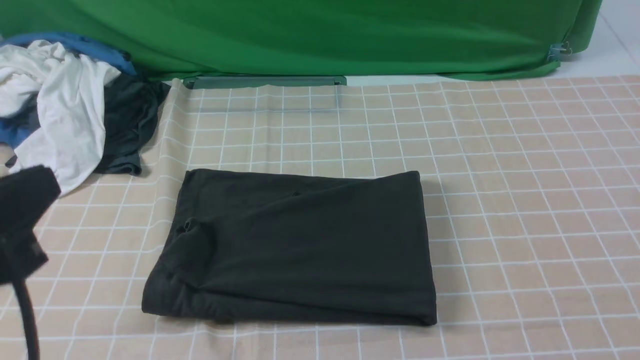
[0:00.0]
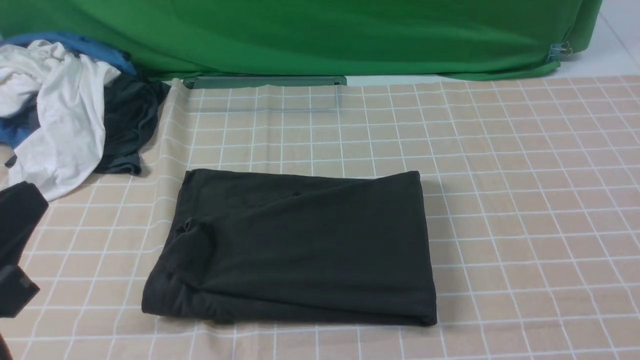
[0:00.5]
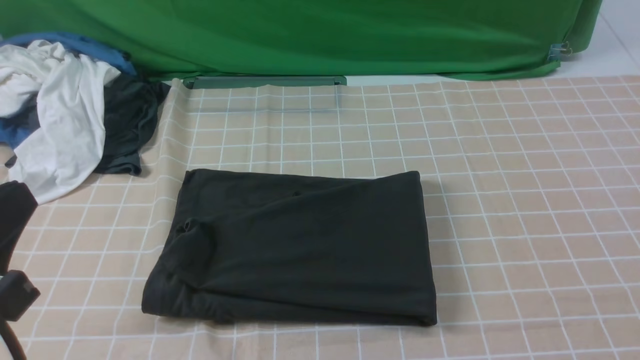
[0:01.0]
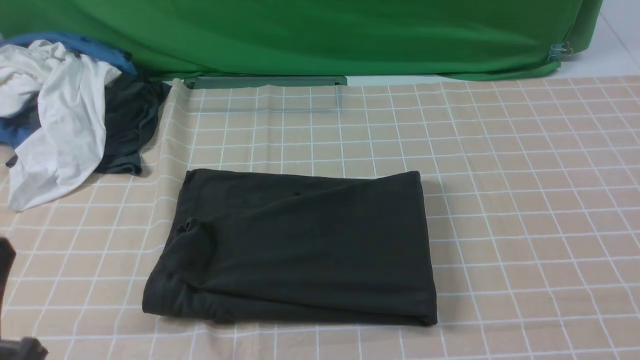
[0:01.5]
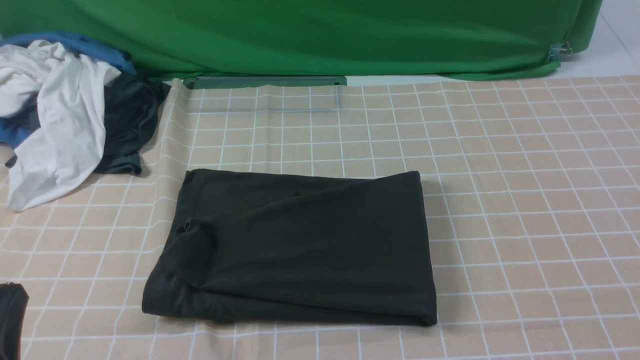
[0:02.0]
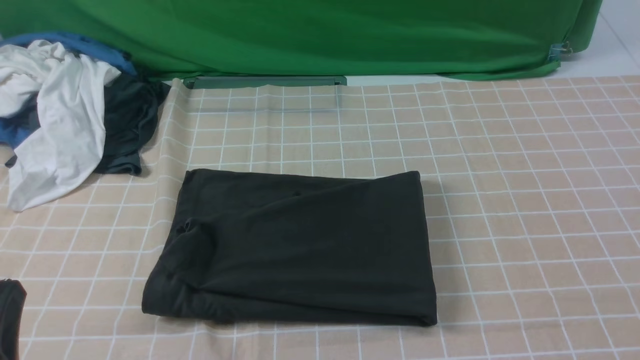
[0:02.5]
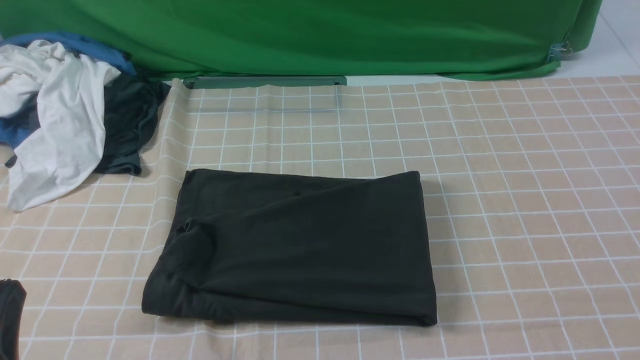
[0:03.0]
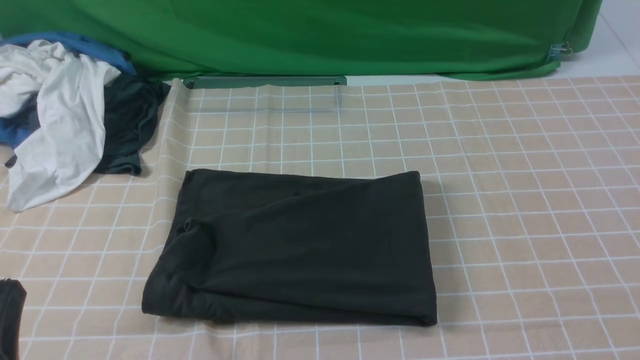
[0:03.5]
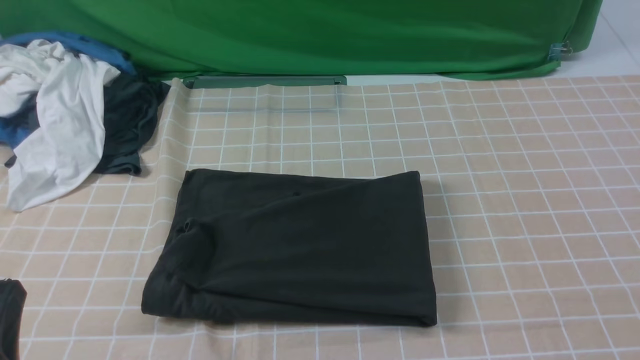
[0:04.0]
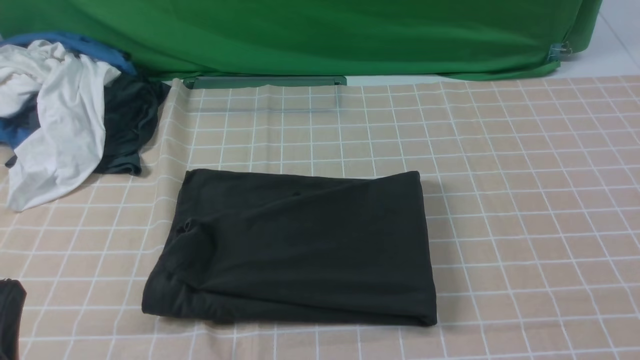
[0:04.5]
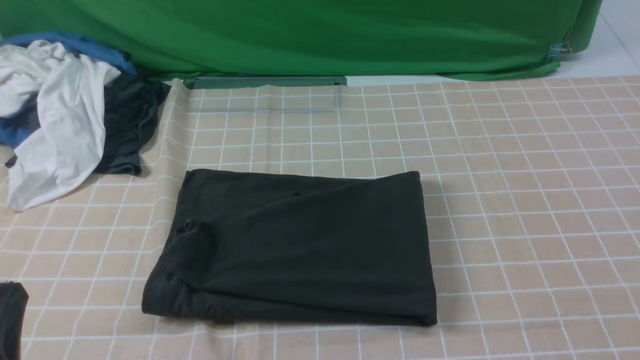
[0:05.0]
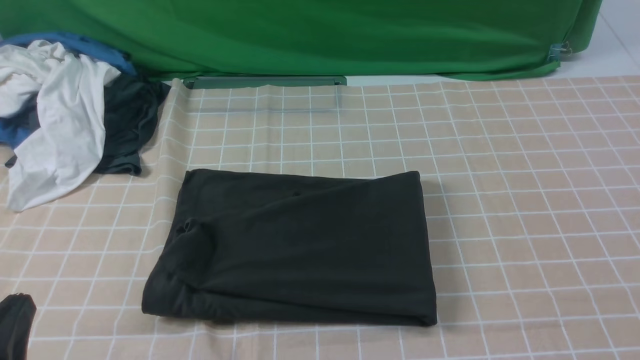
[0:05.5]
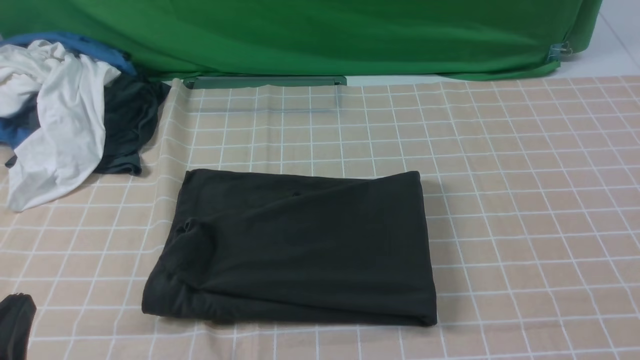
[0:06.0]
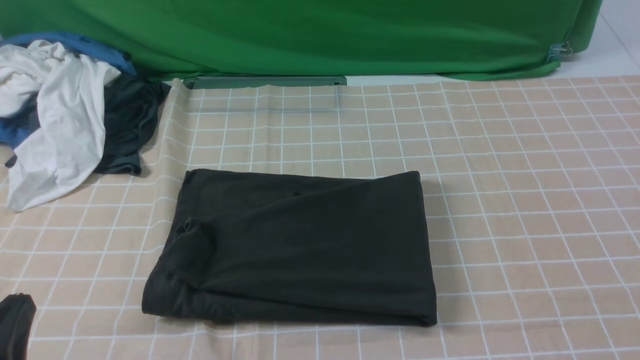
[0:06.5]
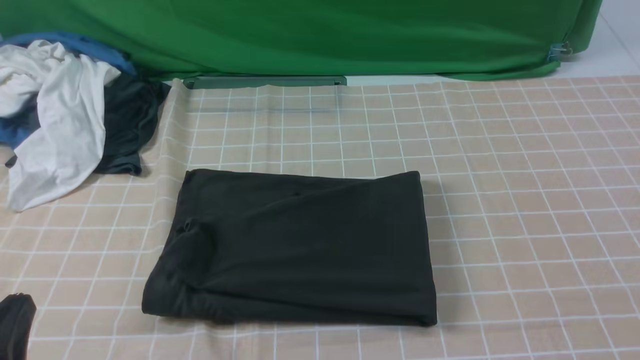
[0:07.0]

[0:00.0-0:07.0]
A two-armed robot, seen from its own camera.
0:00.0 to 0:02.0: The left gripper goes about 15 cm downward.
0:05.0 to 0:07.0: Both grippers stay about where they are.
